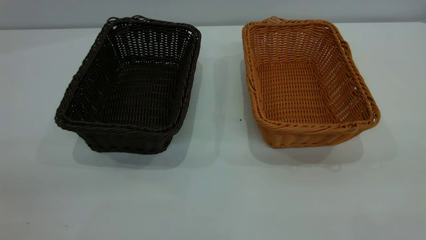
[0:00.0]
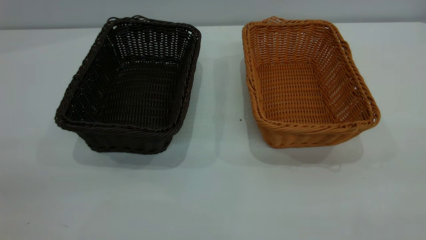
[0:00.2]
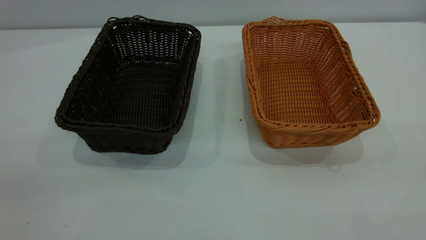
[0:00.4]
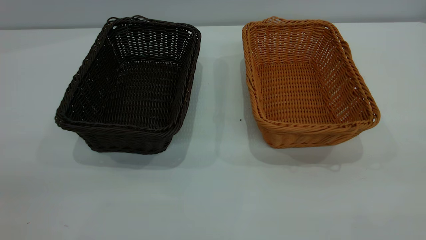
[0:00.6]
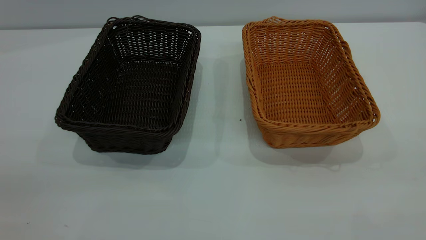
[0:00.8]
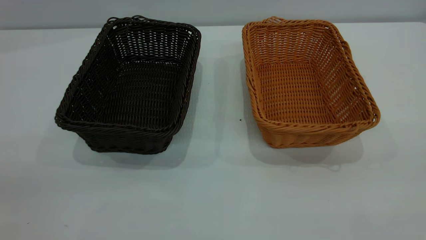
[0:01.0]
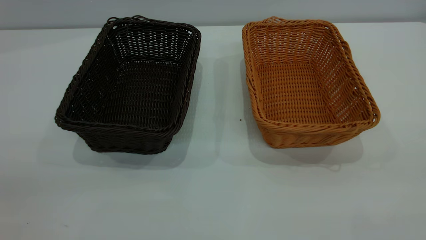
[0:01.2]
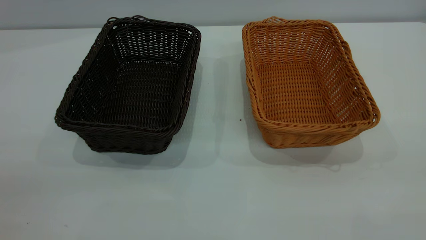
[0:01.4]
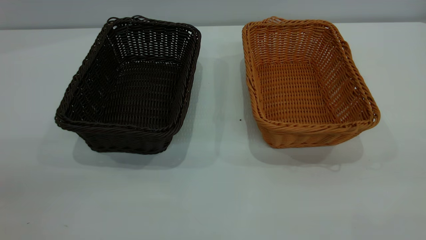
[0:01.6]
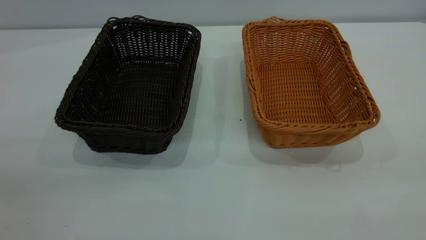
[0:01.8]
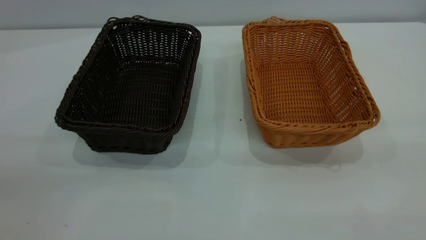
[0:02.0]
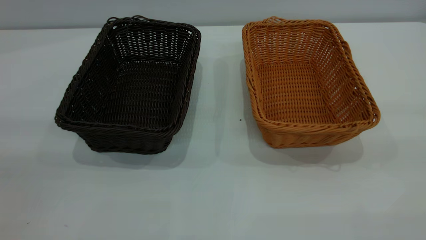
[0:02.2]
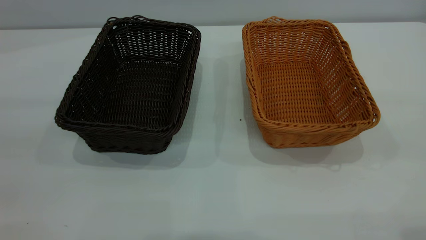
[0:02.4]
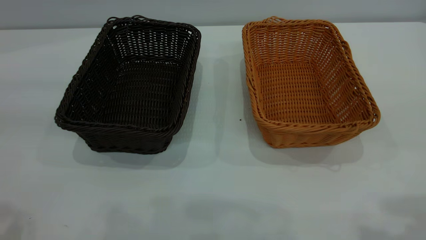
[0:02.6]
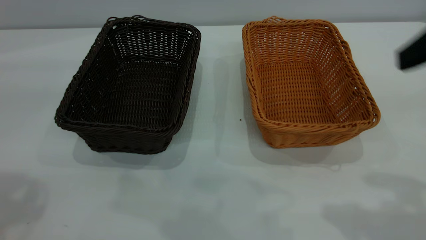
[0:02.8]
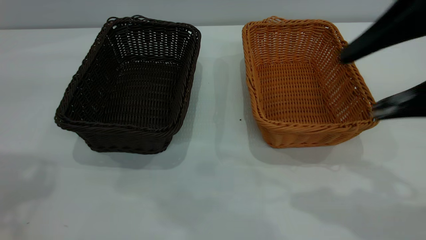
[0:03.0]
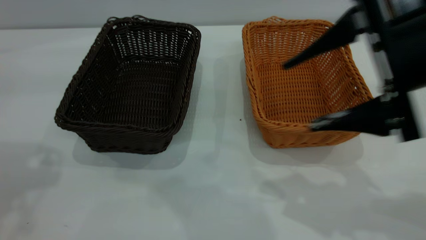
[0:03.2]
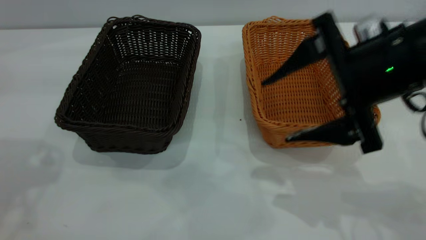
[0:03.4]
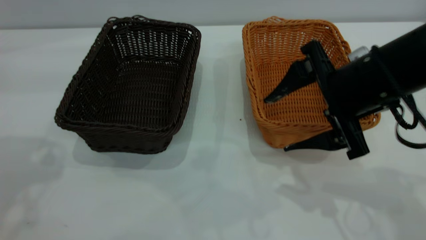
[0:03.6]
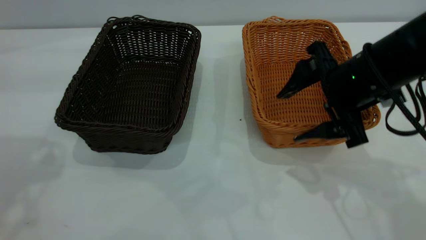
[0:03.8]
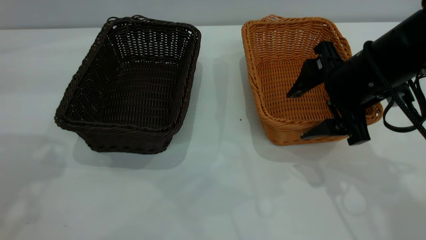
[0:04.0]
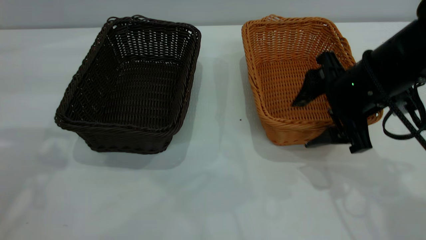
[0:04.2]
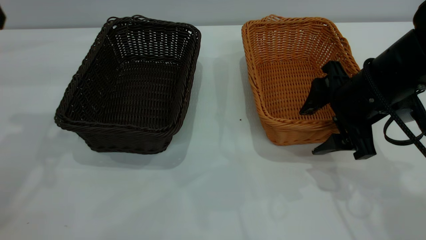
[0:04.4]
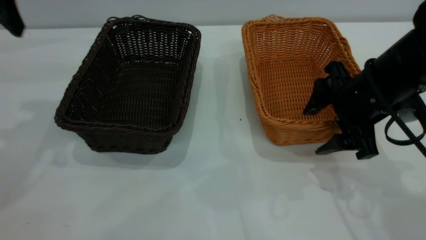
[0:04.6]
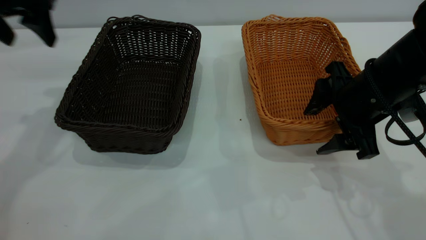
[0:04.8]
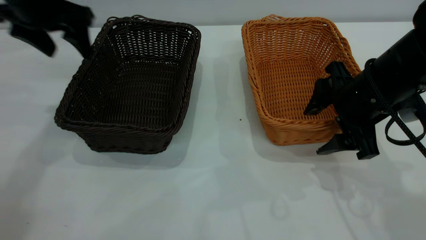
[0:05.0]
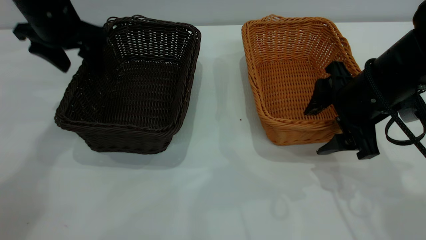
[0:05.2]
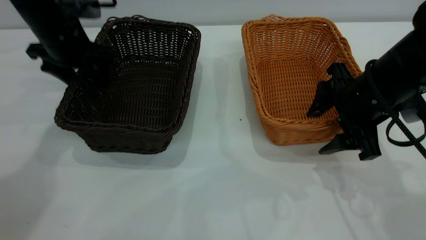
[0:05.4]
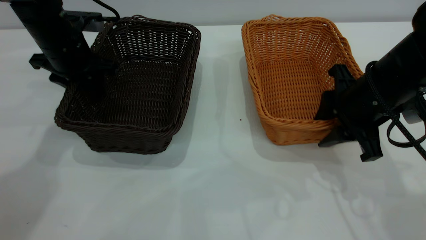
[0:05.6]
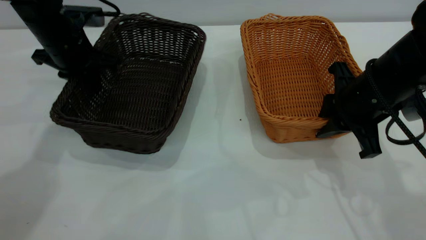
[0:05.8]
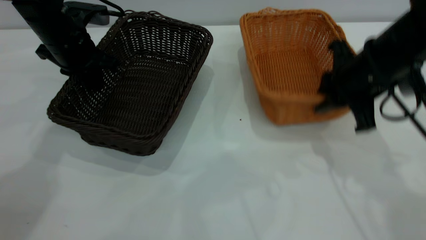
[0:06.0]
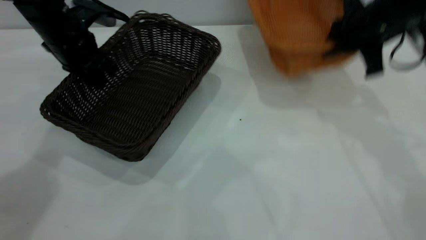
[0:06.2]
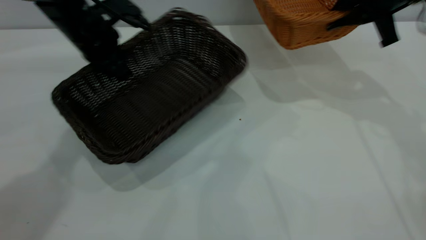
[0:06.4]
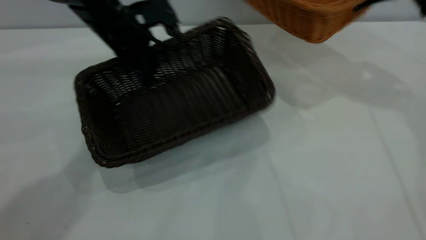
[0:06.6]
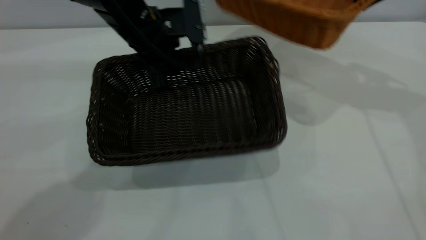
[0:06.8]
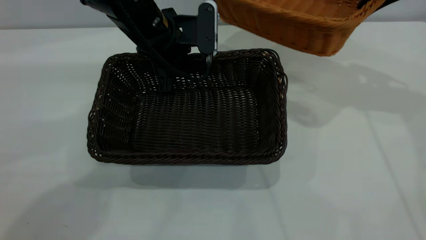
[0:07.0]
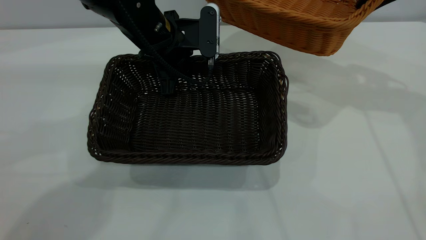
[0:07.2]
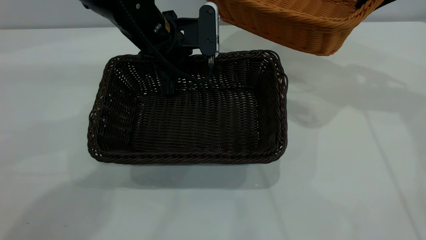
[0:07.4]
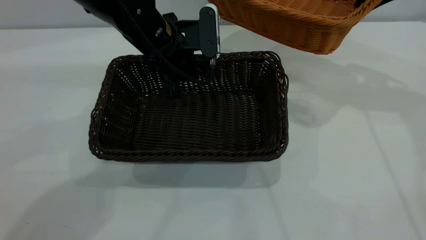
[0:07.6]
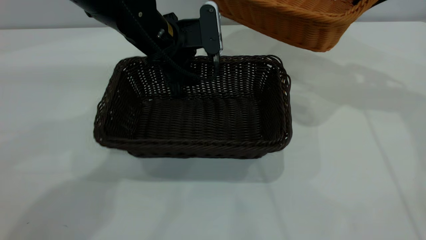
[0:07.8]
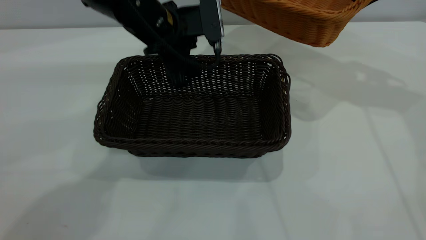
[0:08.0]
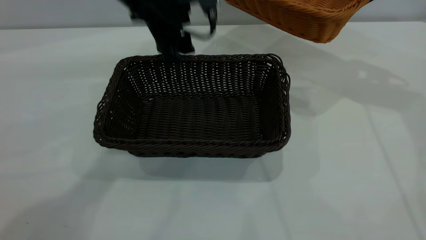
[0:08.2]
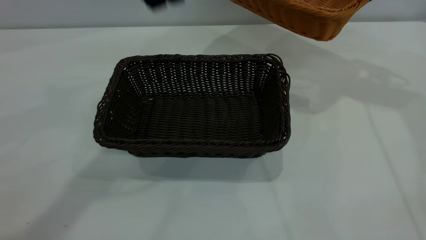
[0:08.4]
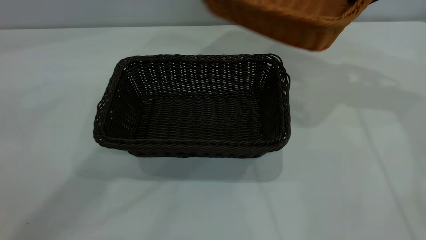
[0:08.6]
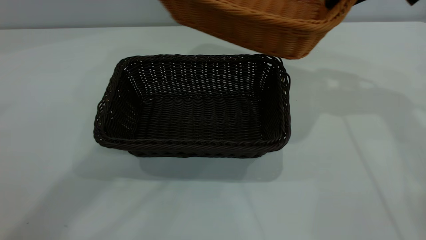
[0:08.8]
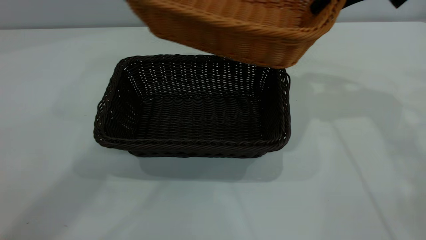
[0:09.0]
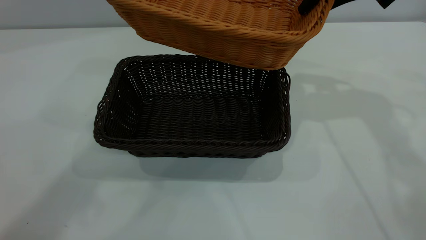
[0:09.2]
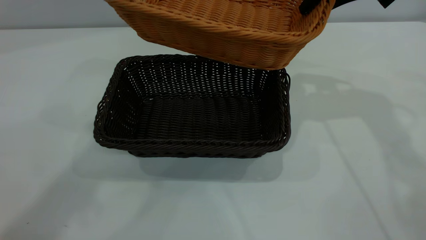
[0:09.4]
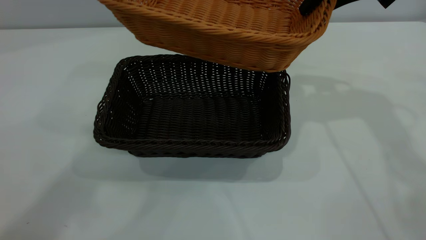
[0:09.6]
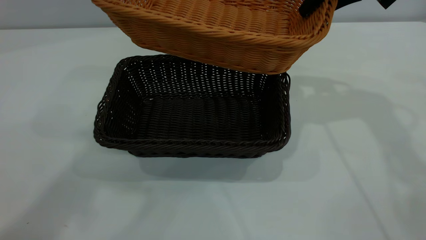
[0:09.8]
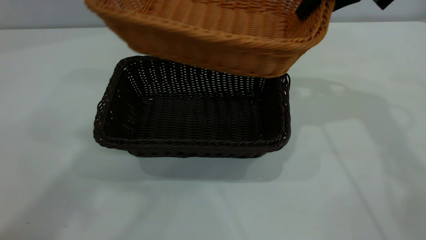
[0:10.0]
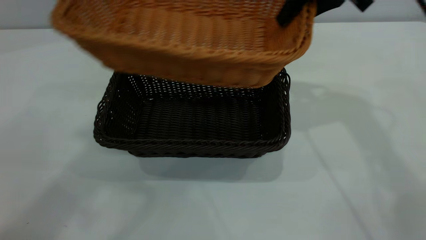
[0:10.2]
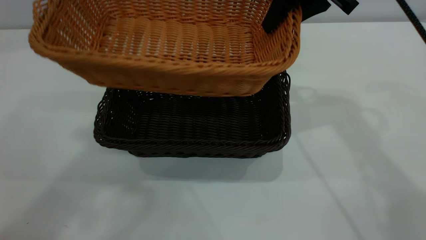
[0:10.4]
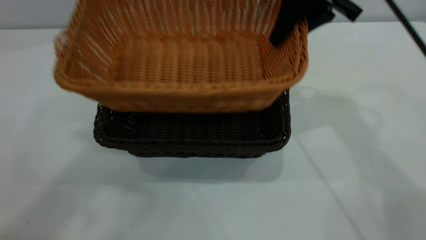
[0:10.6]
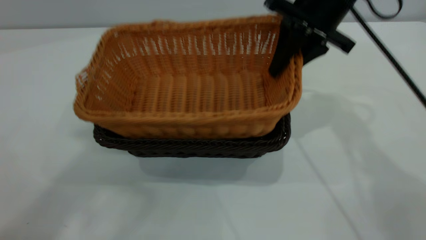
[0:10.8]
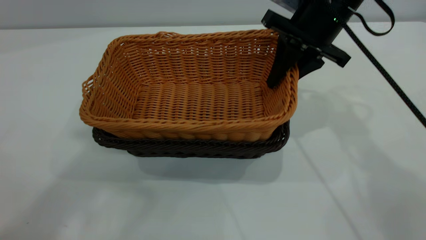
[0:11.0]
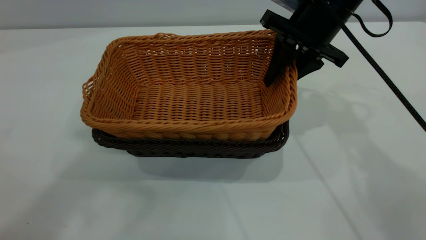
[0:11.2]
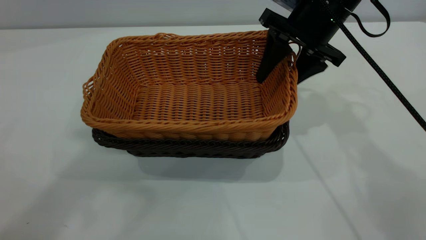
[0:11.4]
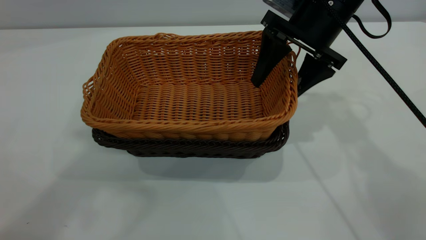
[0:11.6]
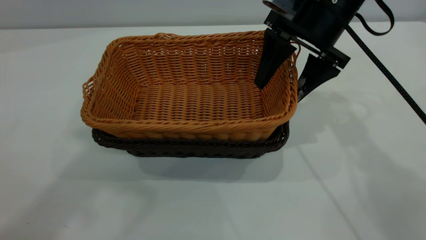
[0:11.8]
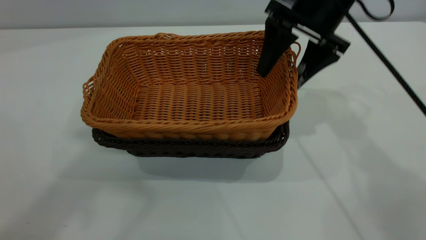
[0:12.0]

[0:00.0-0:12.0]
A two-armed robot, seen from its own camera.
Task of the whole recording: the left gripper grasp the black basket and place it in the center of the table, the right gripper grasp the brown basket and place it inside the black one.
Step, 0:00.0 to 0:06.0: Pick up the light basket with the right gripper.
Step, 0:06.2 to 0:08.2: Move the dark basket to the center of view.
0:00.0 to 0:01.6: The two grippers keep their place.
0:01.6 to 0:03.0: The right gripper goes about 25 cm forward and downward.
0:03.0 to 0:04.4: The right gripper moves downward and forward, some 15 cm; the left gripper is displaced forward by some 10 cm.
0:04.4 to 0:06.0: The left gripper goes roughly 20 cm downward and forward, and closes up, while the right gripper closes up.
0:06.0 to 0:07.6: The right gripper shifts roughly 15 cm upward, forward and to the right. The left gripper shifts some 15 cm to the right, and opens up.
0:07.6 to 0:09.0: The left gripper shifts about 40 cm upward, and opens. The right gripper moves to the left, about 5 cm.
0:09.0 to 0:10.4: The right gripper moves to the left, roughly 5 cm. The left gripper travels upward by some 5 cm.
0:10.4 to 0:12.0: The right gripper moves downward, about 5 cm, and opens.

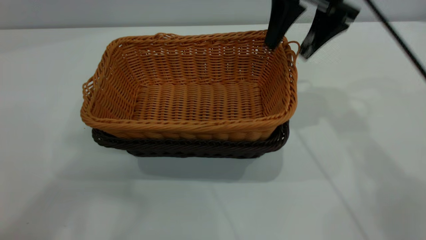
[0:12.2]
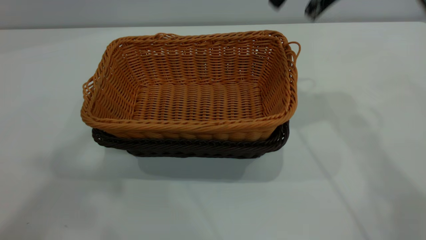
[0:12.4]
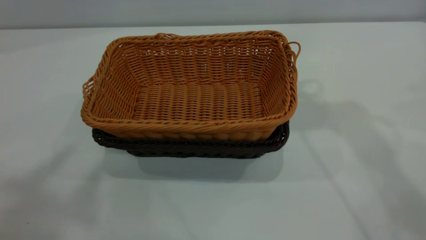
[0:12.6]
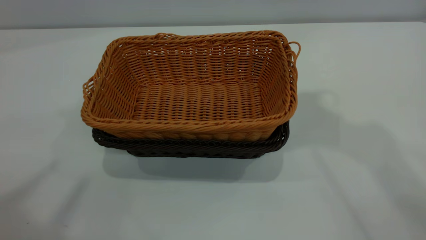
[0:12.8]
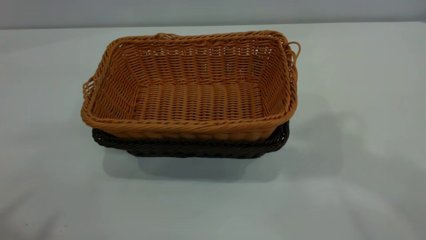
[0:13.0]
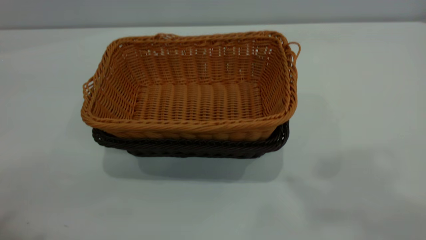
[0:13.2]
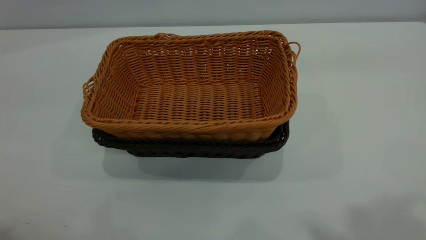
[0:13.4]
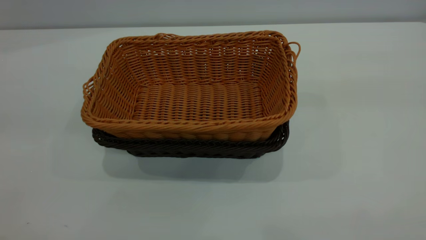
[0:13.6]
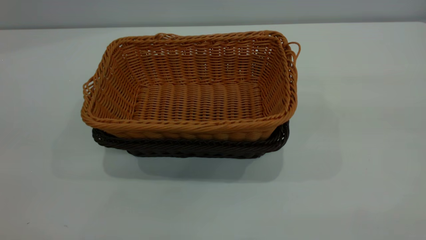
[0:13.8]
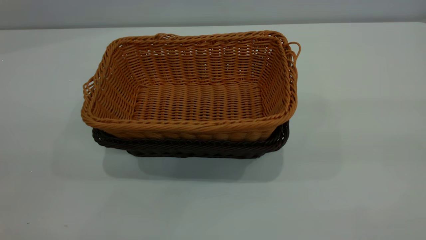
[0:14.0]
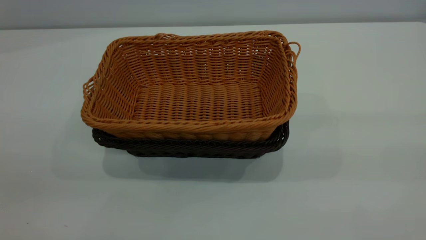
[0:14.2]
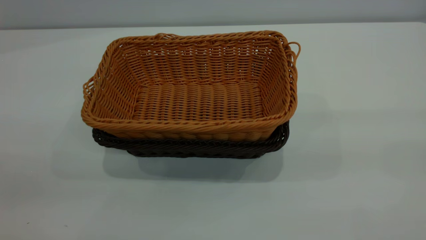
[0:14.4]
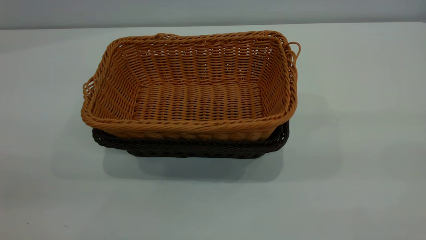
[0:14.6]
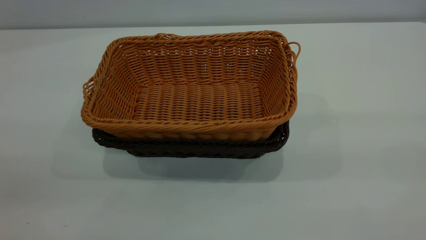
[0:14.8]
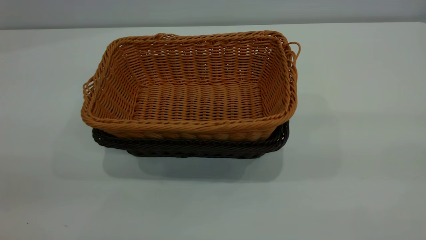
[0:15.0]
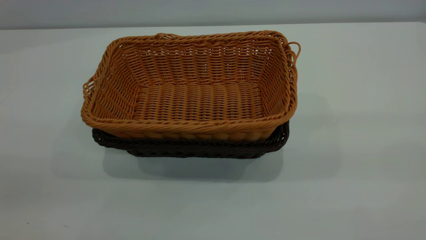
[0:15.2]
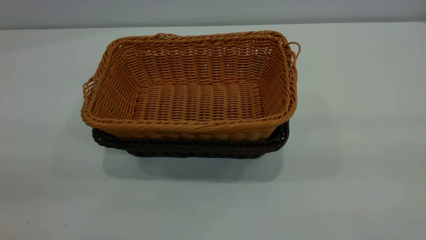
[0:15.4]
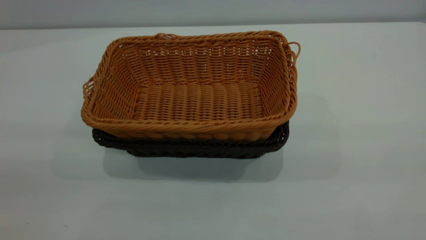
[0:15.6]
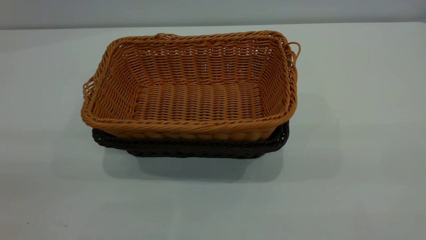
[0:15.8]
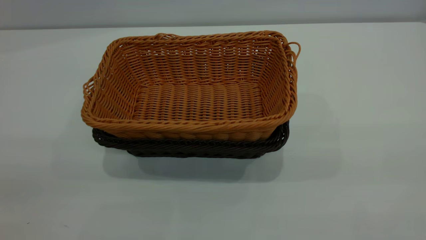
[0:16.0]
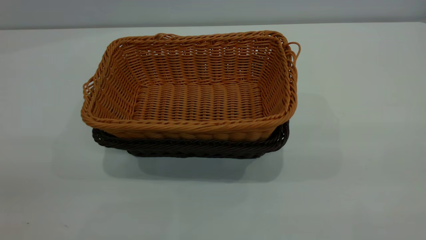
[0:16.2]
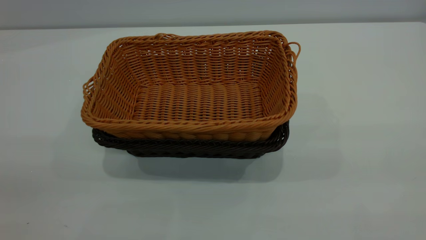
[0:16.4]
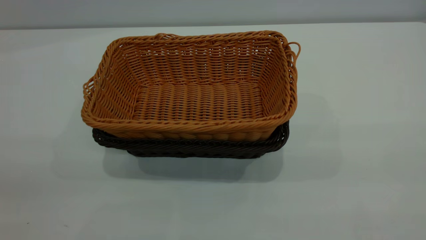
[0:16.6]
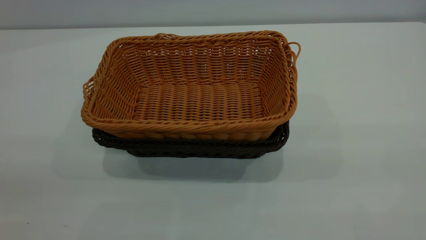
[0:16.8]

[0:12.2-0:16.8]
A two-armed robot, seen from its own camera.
Task of the whole recording: the left gripper grasp the black basket and place it in the center of the table, the right gripper grasp the brown basket and place it inside the black one.
0:12.2 to 0:13.8: The left gripper heads downward, backward and to the left, covering roughly 25 cm, while the right gripper travels backward and upward by about 40 cm.
